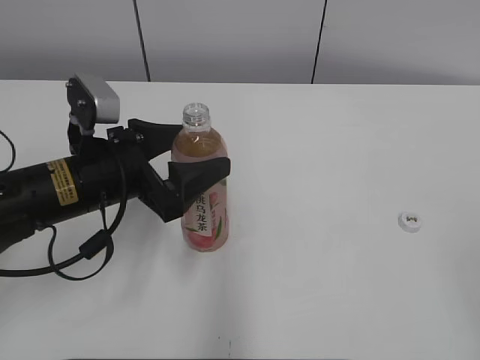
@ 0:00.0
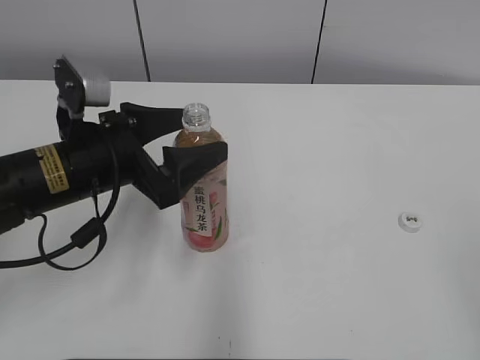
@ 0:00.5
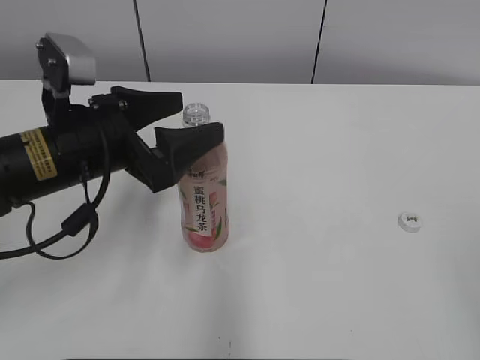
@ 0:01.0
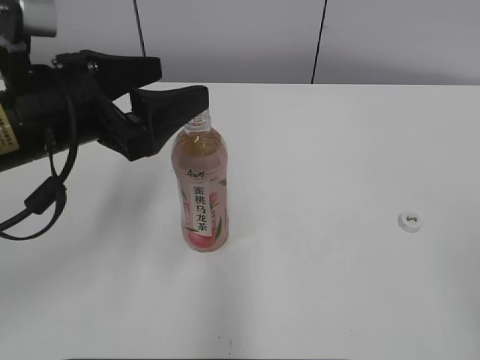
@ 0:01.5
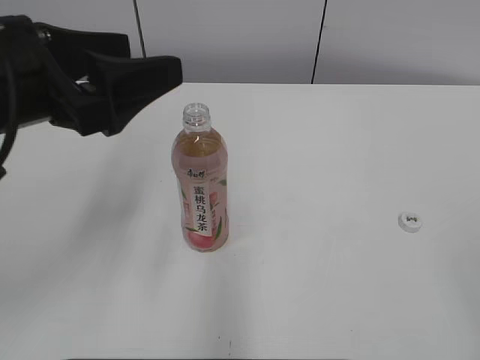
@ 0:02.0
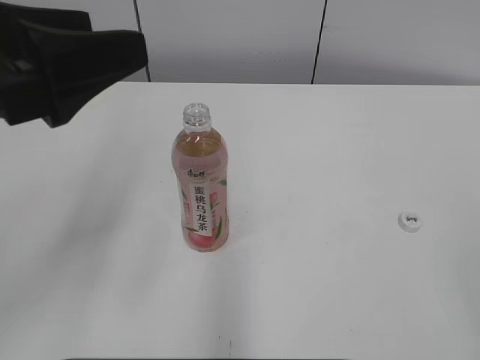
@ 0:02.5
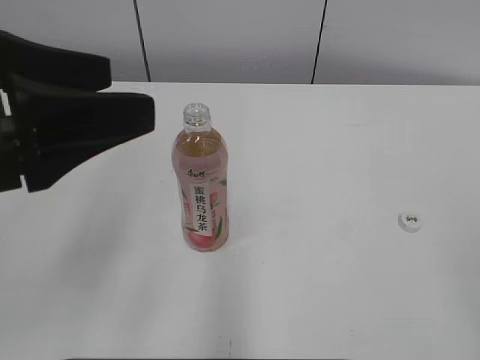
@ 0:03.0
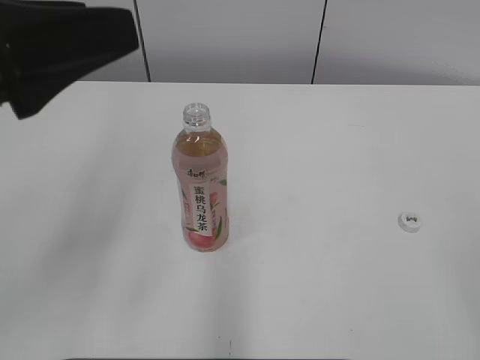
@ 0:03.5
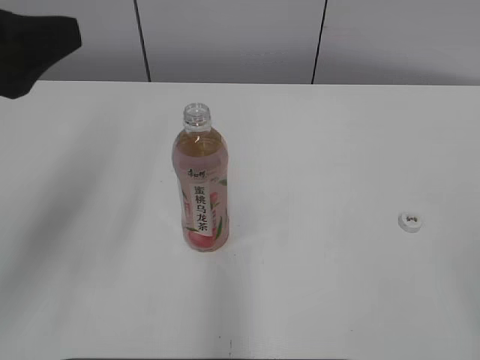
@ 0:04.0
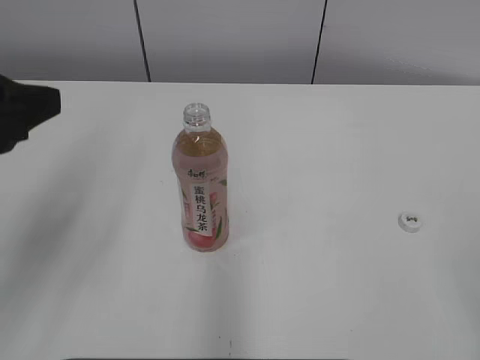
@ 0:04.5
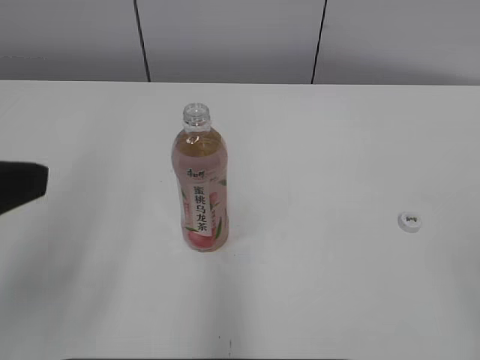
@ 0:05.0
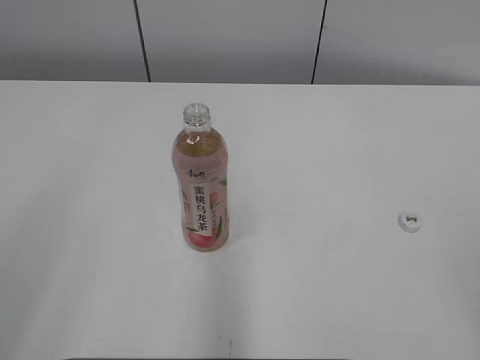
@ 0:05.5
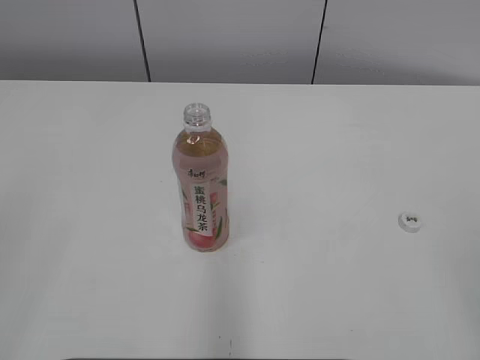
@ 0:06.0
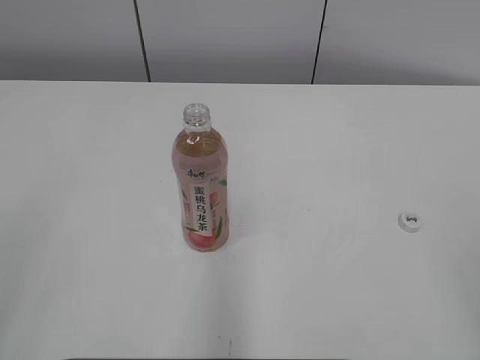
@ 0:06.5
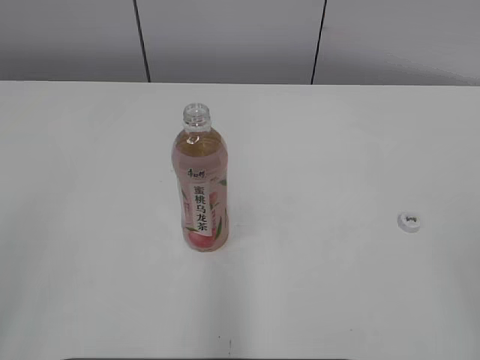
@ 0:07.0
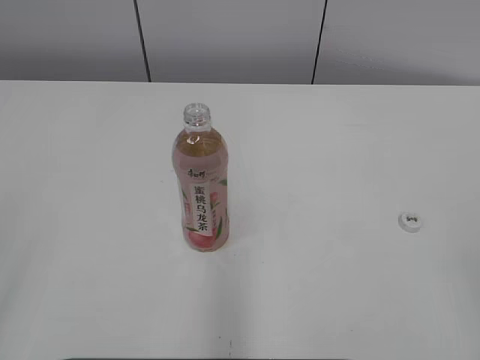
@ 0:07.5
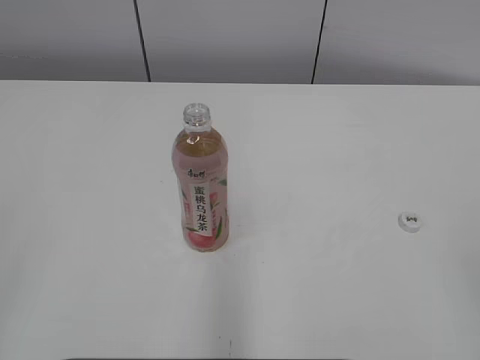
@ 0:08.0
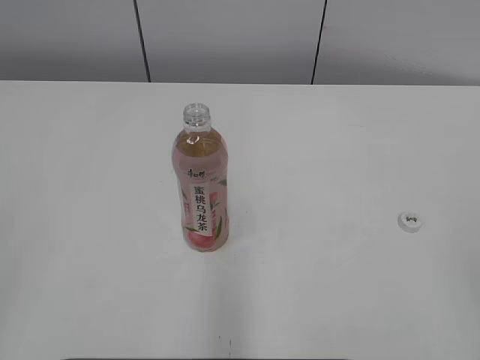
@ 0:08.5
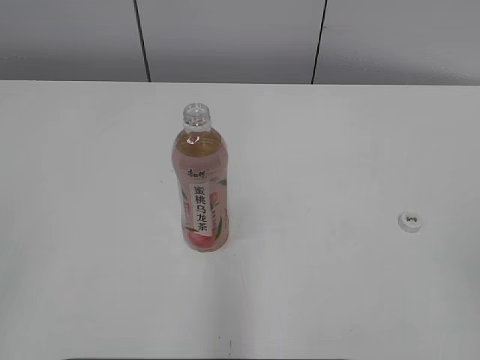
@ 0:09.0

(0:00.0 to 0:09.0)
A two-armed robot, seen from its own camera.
0:00.0 - 0:02.0: The left gripper heads upward, covering some 10 cm.
0:02.0 - 0:04.5: The left gripper moves to the left, approximately 5 cm, and closes its fingers.
0:04.5 - 0:07.0: The left gripper goes about 15 cm backward and to the left.
